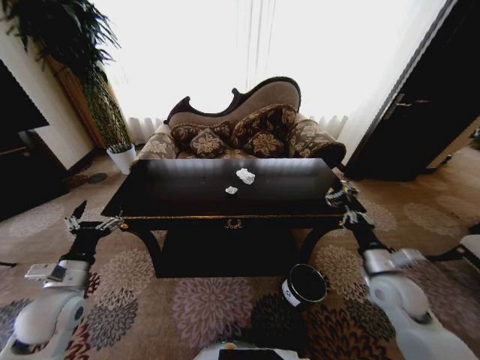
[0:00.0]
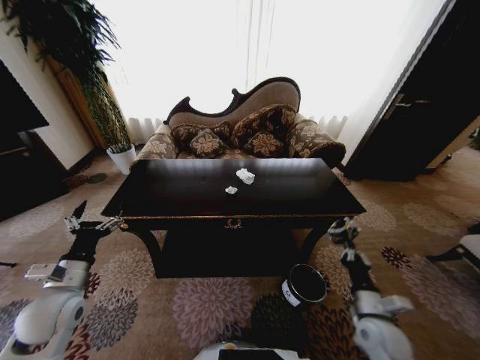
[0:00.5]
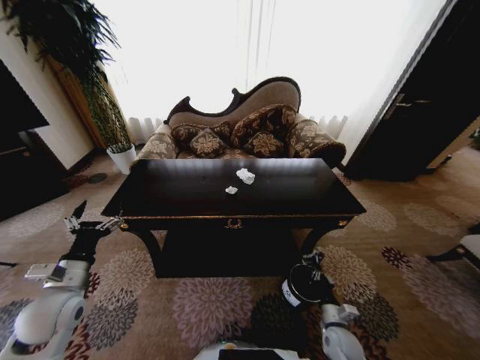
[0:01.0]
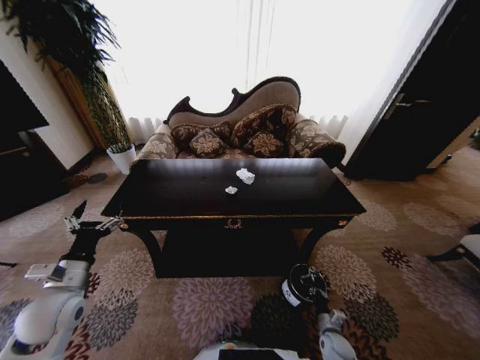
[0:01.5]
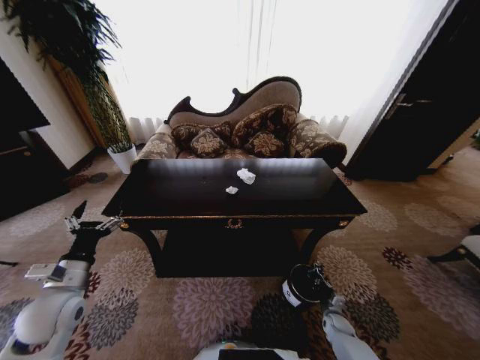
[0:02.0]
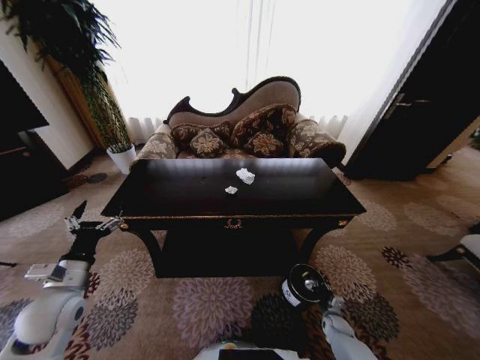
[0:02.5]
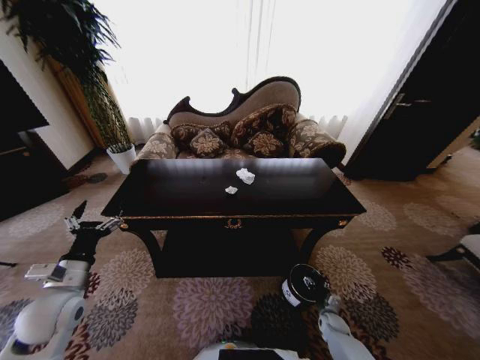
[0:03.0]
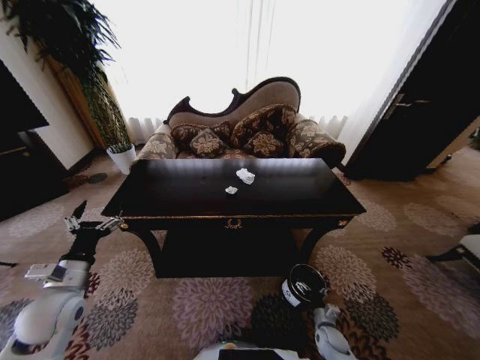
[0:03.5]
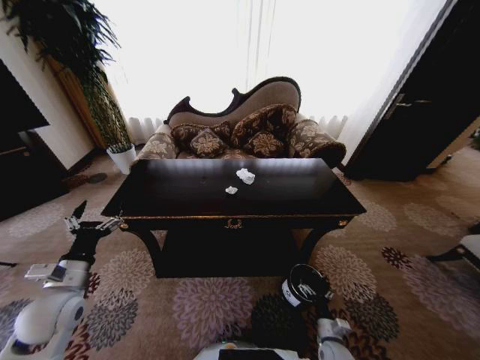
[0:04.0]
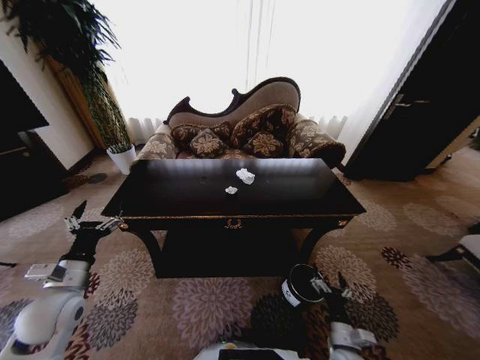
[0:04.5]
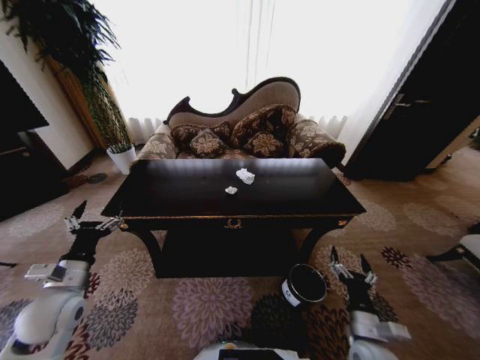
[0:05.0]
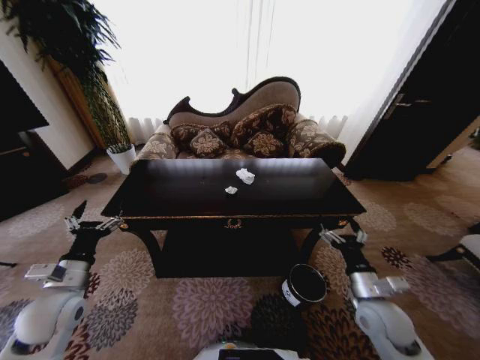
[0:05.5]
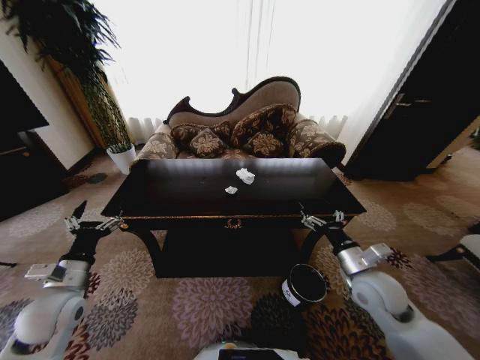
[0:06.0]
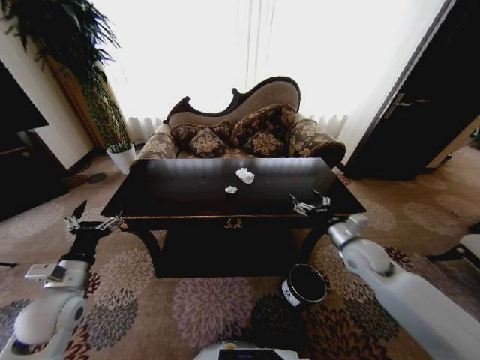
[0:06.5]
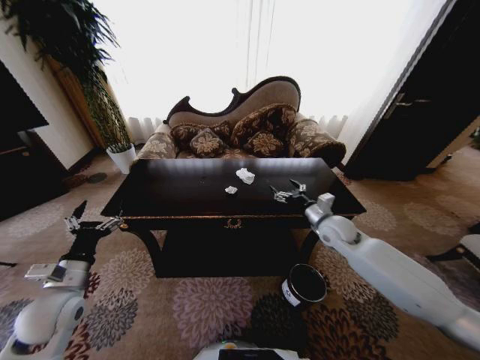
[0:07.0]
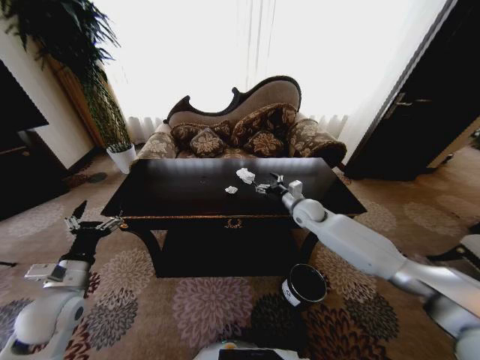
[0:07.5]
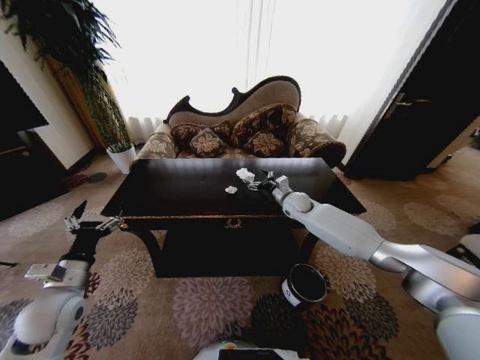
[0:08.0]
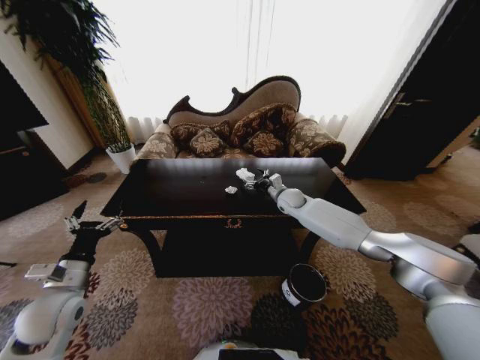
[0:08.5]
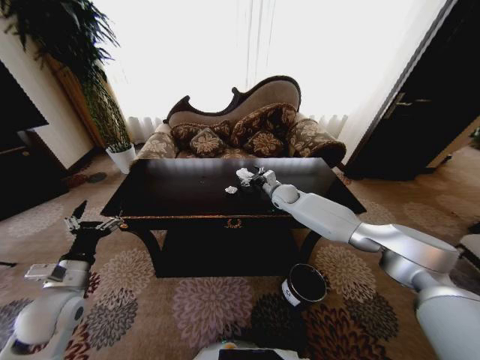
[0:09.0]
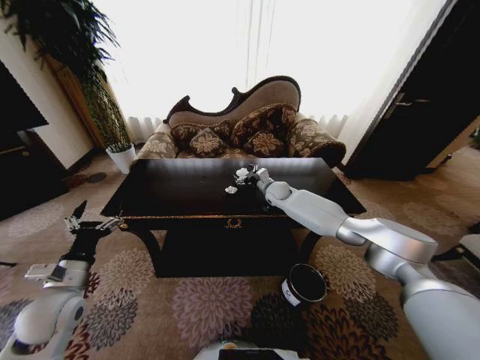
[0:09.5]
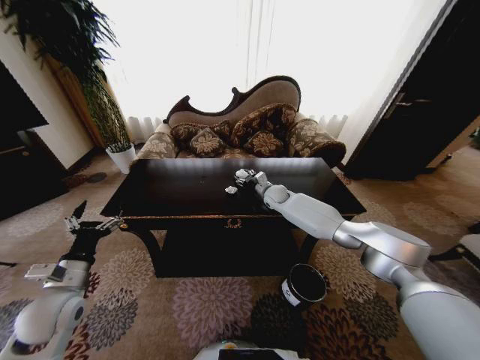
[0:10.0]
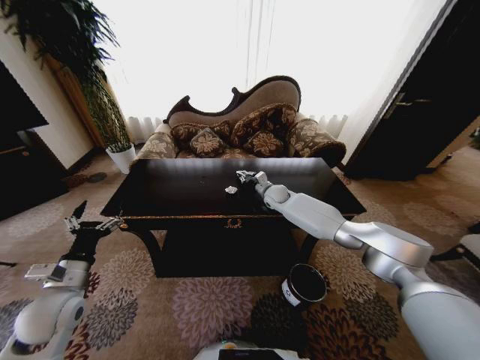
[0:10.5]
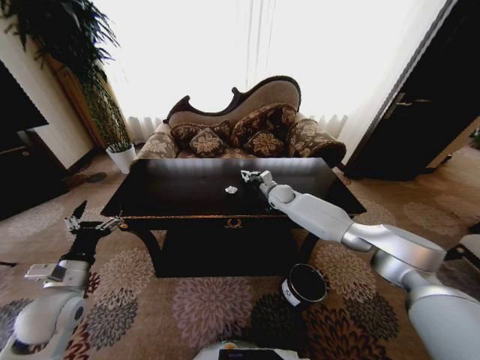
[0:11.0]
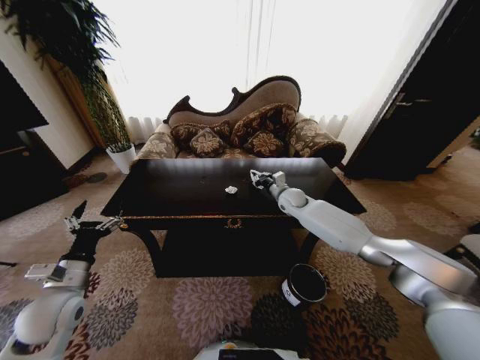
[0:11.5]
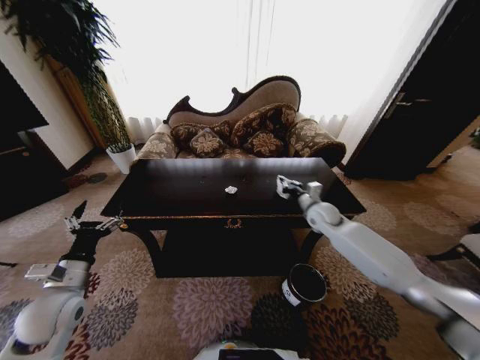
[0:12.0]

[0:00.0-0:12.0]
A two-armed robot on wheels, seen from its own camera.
Task of the whole recording: Move to the front of the table and place the trash on the table into the trash bin.
0:00.0 to 0:02.0: The right gripper shifts roughly 35 cm downward.
0:02.0 to 0:04.0: The right gripper shifts approximately 15 cm backward, to the left and upward, and opens.
0:04.0 to 0:06.0: The right gripper shifts roughly 30 cm upward.
0:06.0 to 0:08.0: The right gripper travels forward by some 30 cm.
0:08.0 to 0:10.0: The right gripper is displaced forward and to the left by about 10 cm, and closes its fingers.
0:10.0 to 0:12.0: The right gripper moves to the right and backward, roughly 20 cm, and closes up.

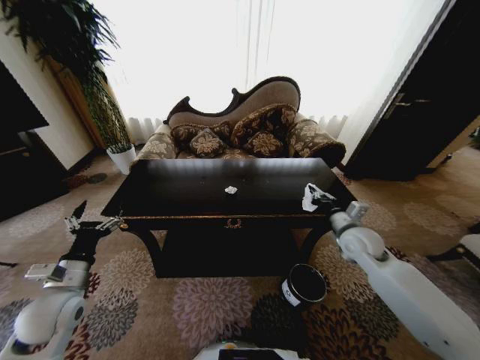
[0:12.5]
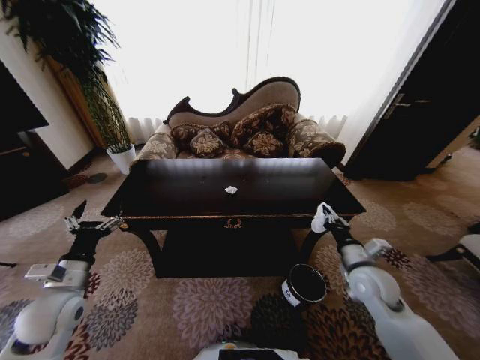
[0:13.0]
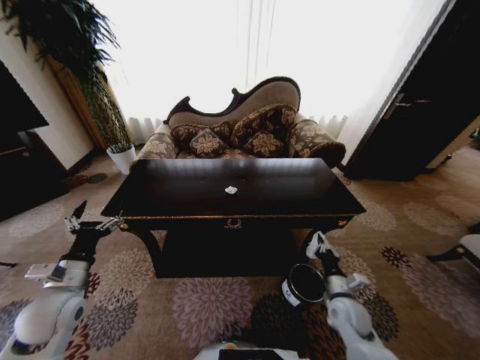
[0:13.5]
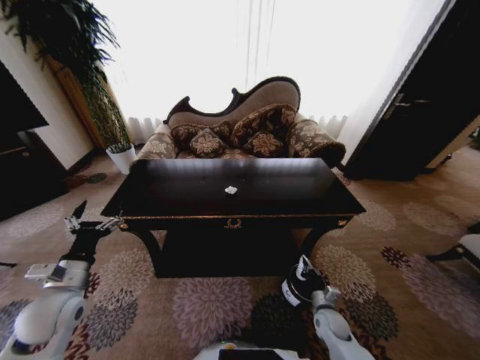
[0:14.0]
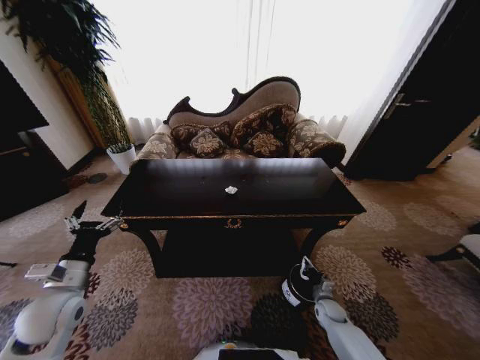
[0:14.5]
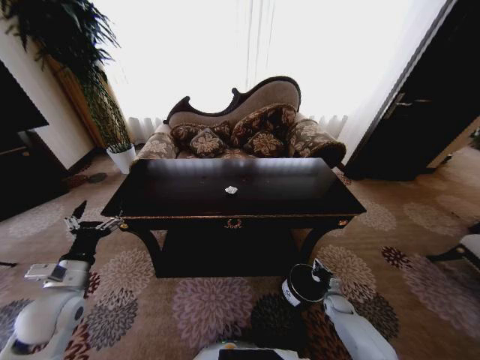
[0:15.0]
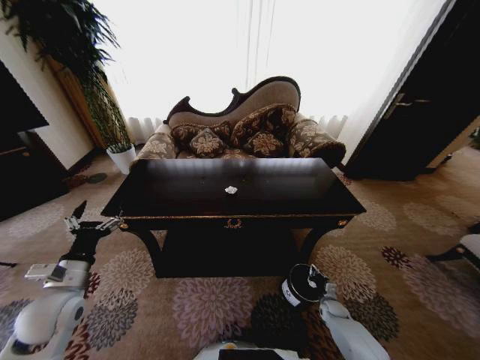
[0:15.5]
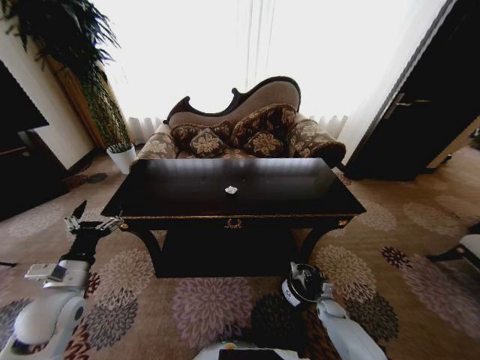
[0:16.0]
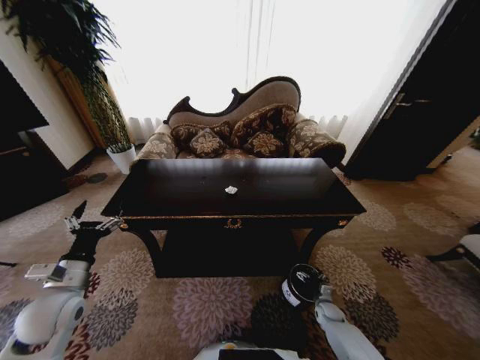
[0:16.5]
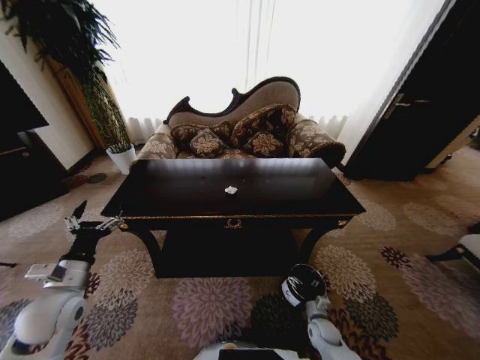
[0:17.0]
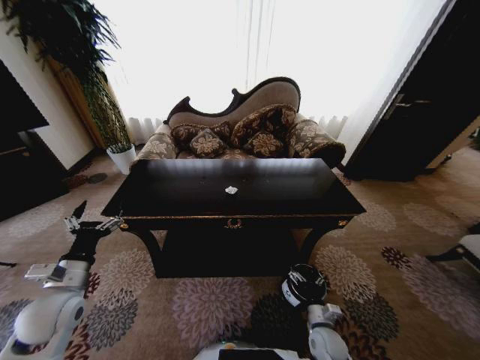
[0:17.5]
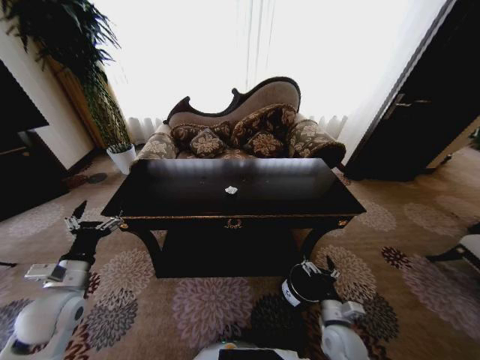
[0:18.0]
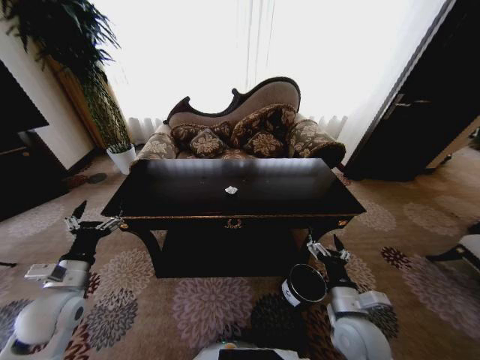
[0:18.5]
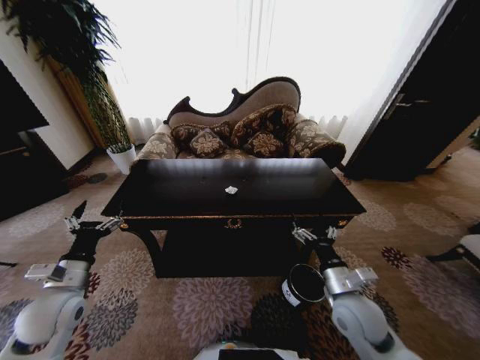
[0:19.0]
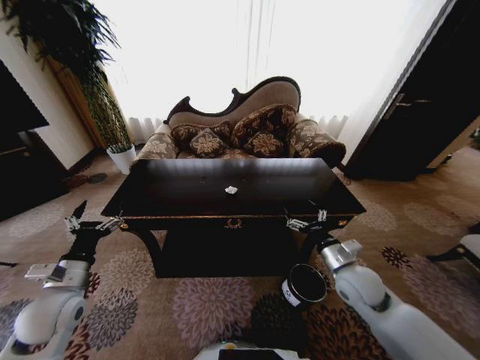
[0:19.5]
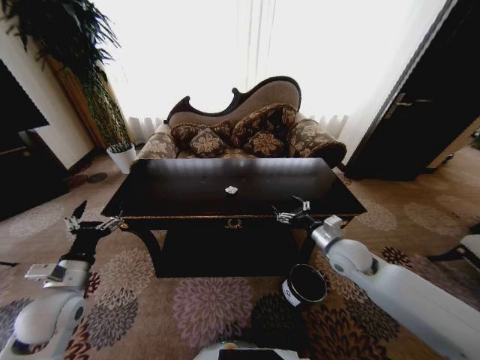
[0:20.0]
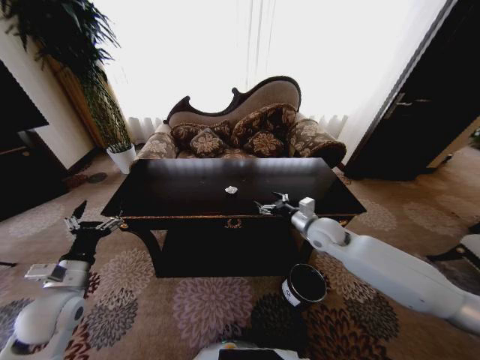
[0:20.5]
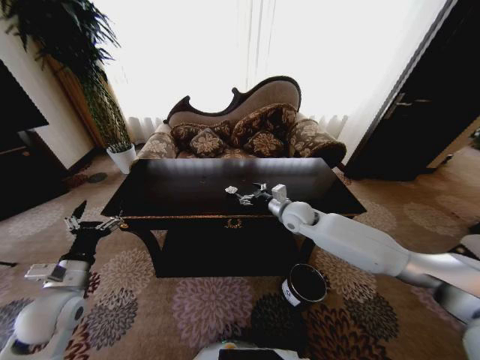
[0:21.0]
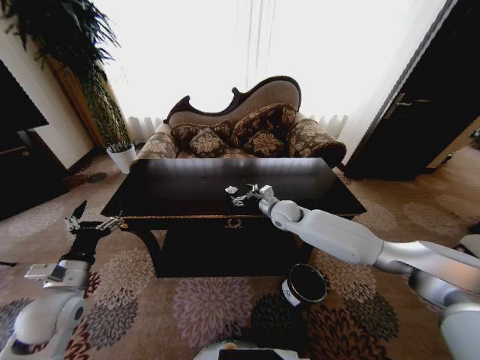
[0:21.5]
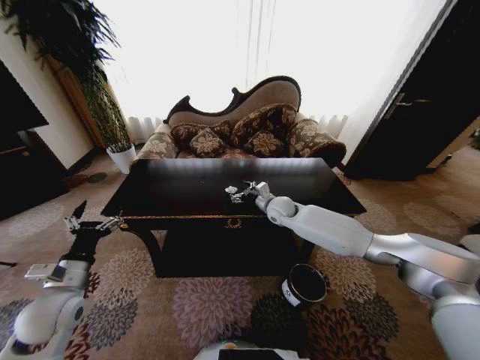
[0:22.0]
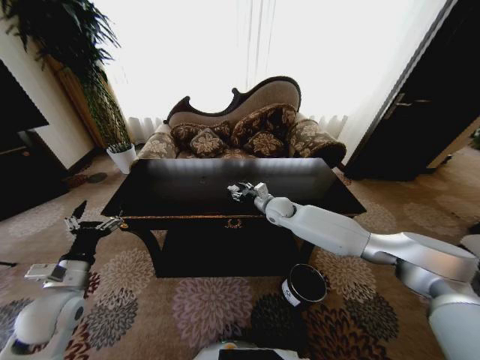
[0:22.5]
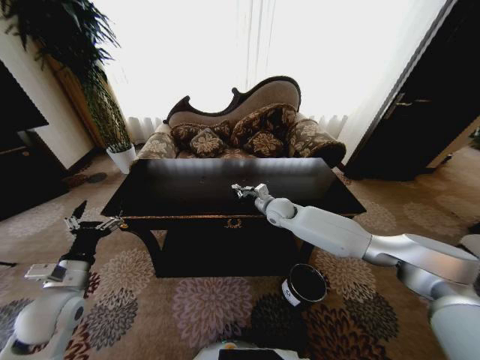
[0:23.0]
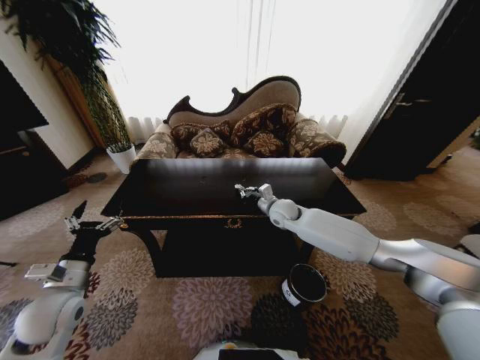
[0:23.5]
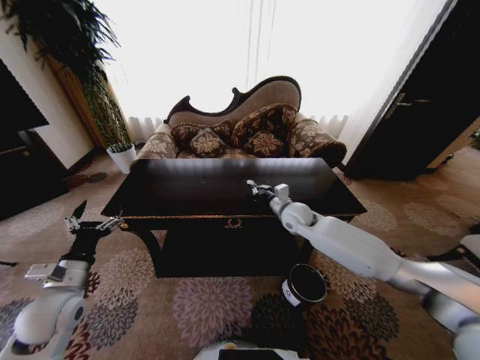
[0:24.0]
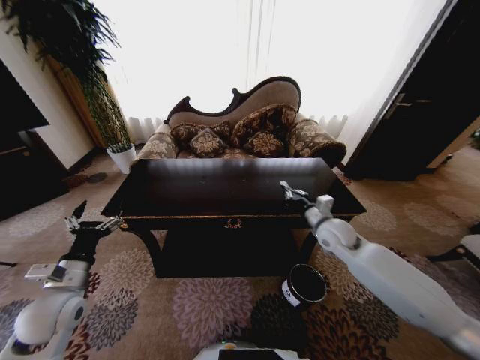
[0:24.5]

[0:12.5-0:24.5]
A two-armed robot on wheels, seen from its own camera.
Task of the whole recording: Move to the front of the table and place the trash on the table into the trash bin.
0:12.5 to 0:14.5: The right gripper shifts roughly 35 cm downward.
0:16.5 to 0:18.5: The right gripper shifts some 30 cm upward.
0:18.5 to 0:20.5: The right gripper is displaced forward by approximately 25 cm.
0:20.5 to 0:22.5: The right gripper is displaced forward and to the left by some 15 cm.
0:22.5 to 0:24.5: The right gripper is displaced to the right and backward by approximately 20 cm, and closes up.

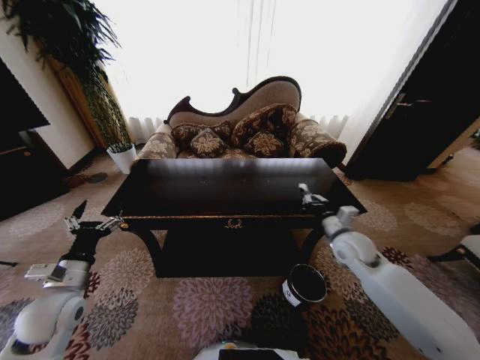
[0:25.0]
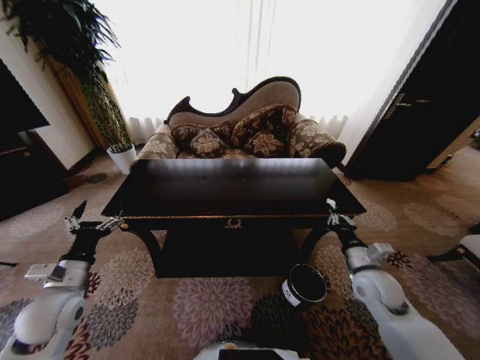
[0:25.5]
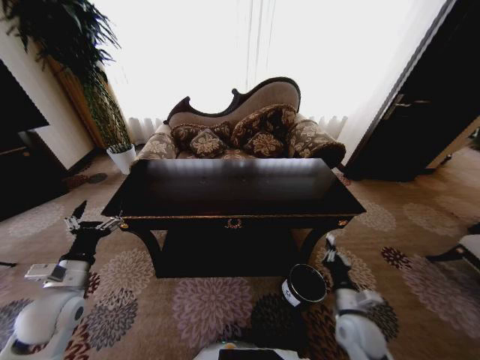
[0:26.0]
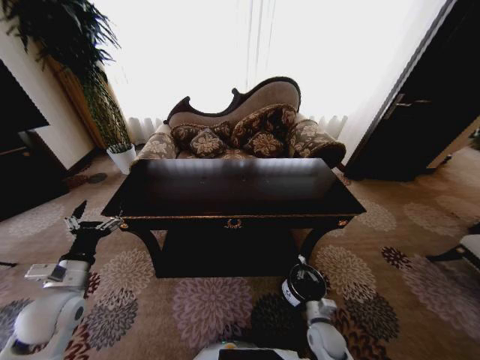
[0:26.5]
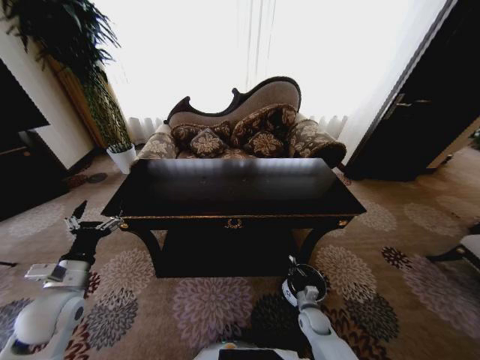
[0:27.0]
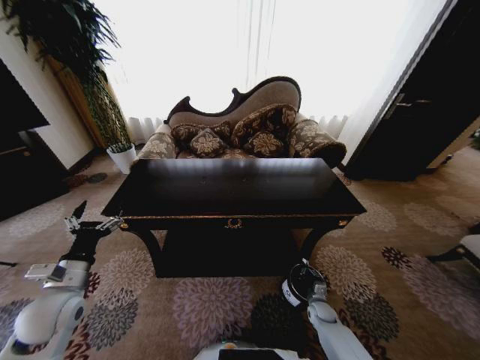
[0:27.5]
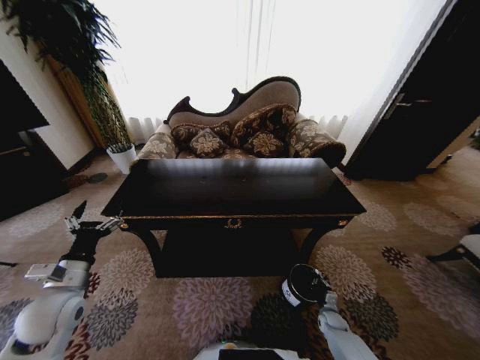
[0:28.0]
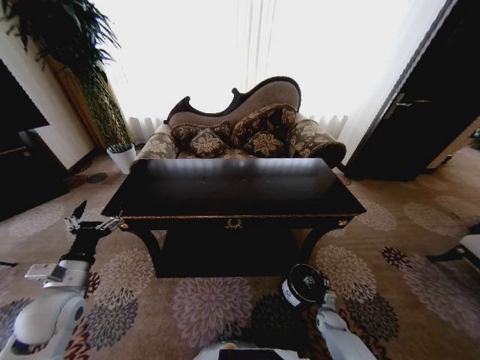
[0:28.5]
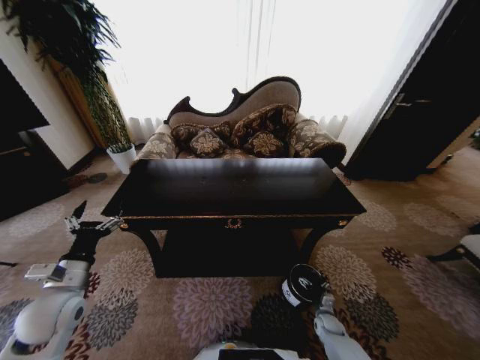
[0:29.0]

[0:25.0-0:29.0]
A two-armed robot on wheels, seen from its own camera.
Task of the whole recording: Move to the front of the table and place the trash on the table into the trash bin.
0:25.0 to 0:27.0: The right gripper heads downward, covering approximately 30 cm.
0:27.0 to 0:29.0: The right gripper goes approximately 10 cm to the right and downward, and opens its fingers.
